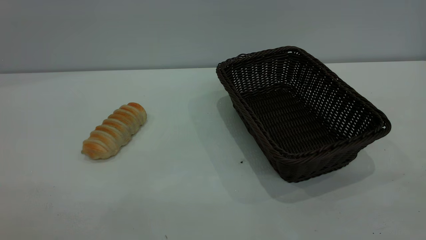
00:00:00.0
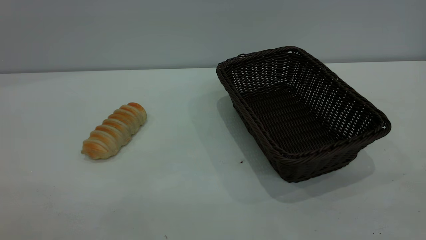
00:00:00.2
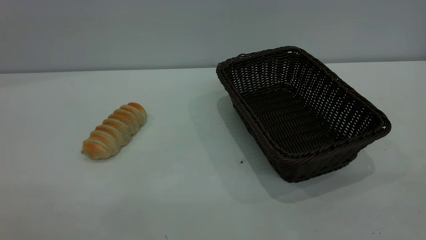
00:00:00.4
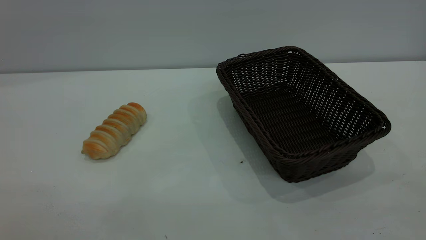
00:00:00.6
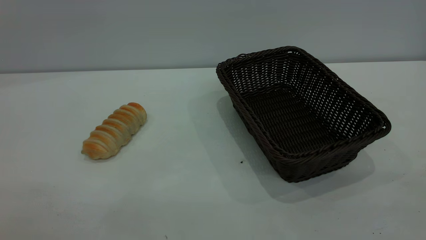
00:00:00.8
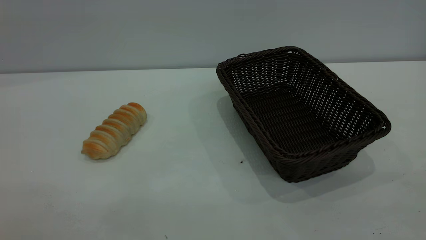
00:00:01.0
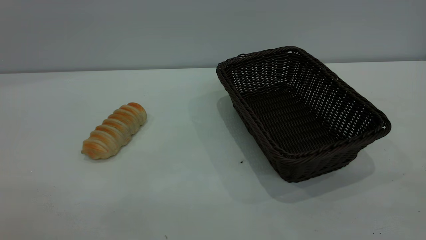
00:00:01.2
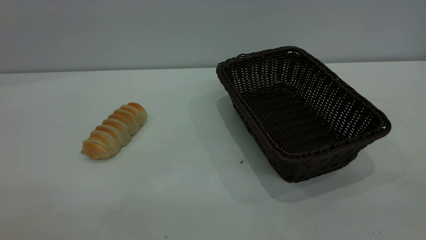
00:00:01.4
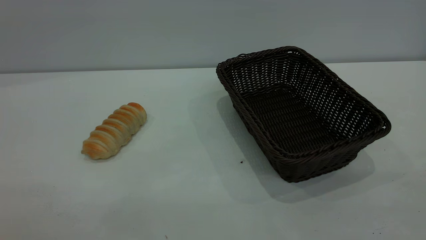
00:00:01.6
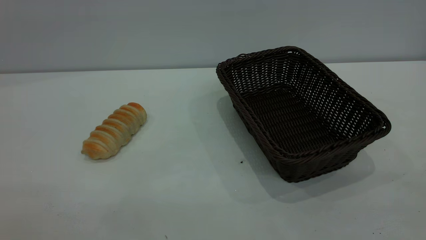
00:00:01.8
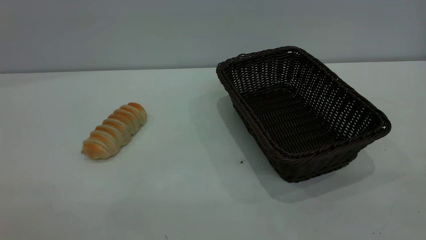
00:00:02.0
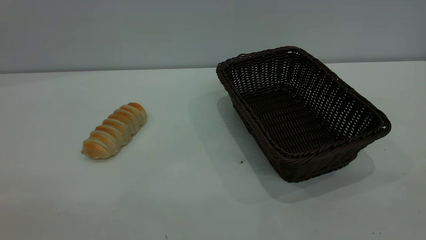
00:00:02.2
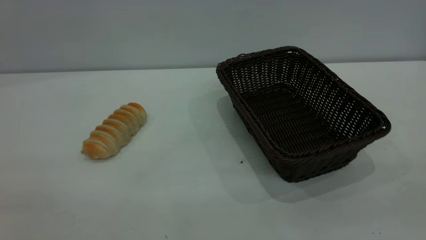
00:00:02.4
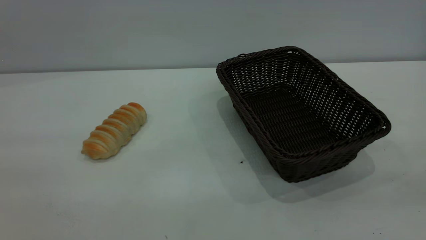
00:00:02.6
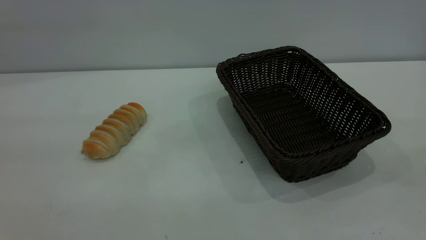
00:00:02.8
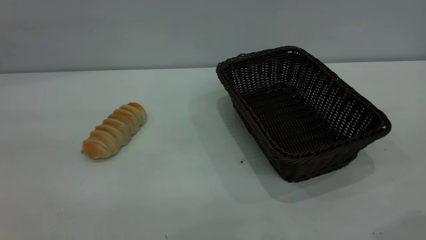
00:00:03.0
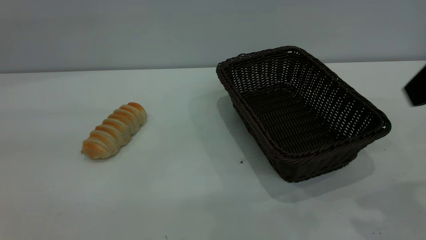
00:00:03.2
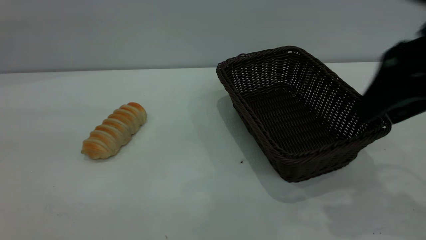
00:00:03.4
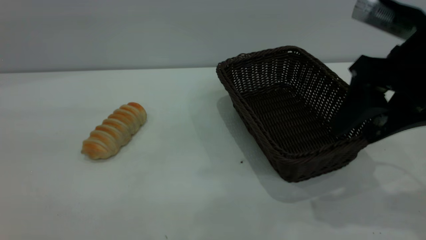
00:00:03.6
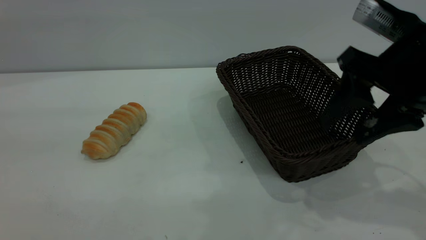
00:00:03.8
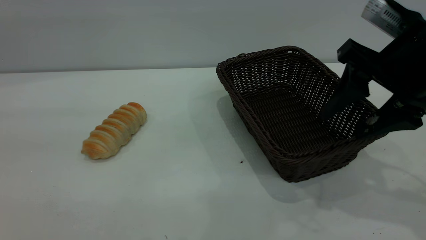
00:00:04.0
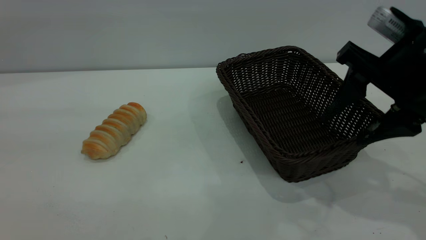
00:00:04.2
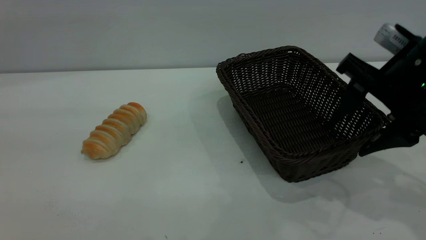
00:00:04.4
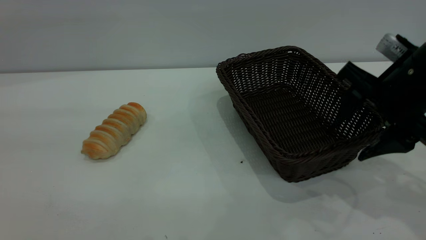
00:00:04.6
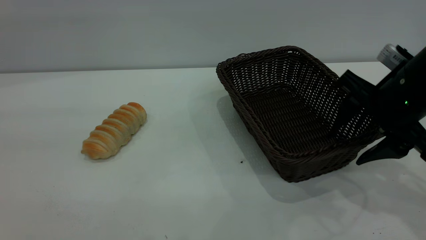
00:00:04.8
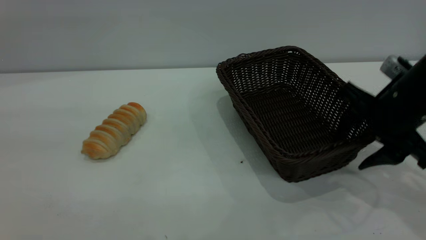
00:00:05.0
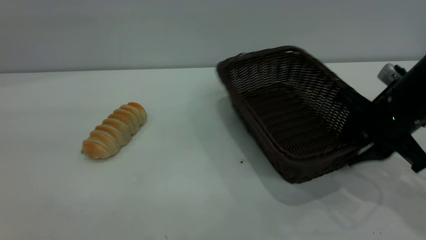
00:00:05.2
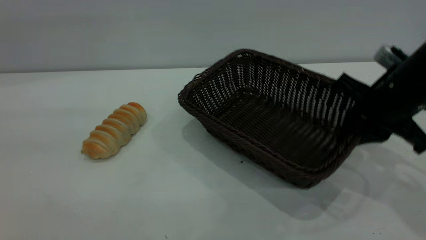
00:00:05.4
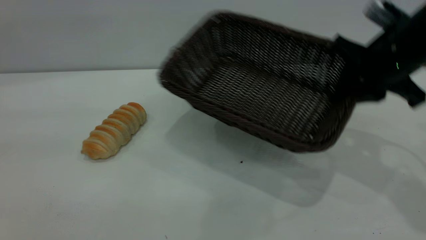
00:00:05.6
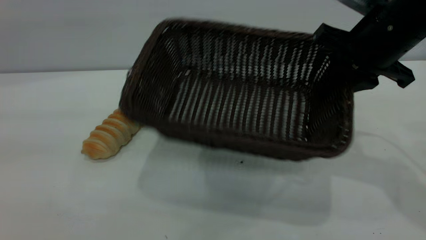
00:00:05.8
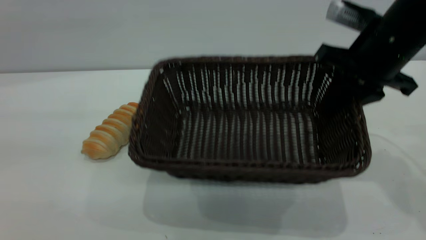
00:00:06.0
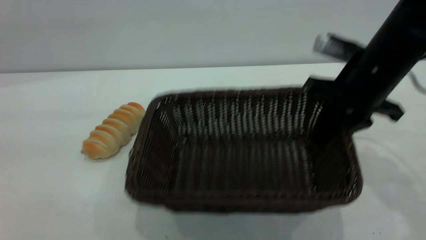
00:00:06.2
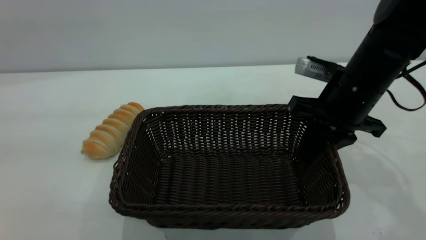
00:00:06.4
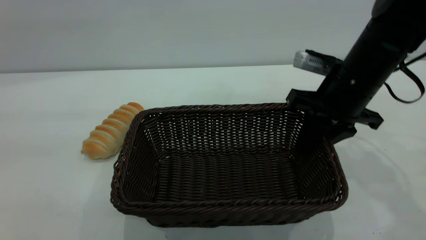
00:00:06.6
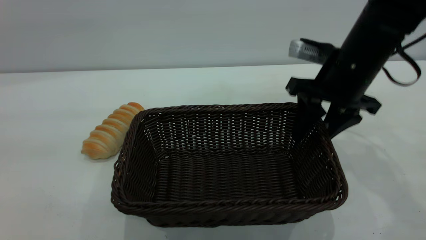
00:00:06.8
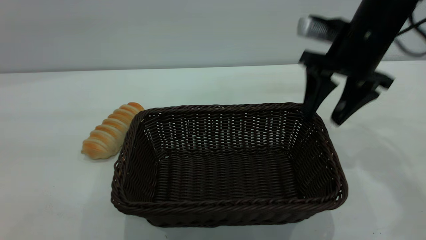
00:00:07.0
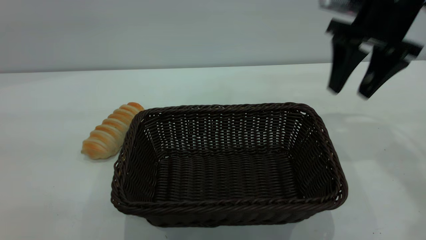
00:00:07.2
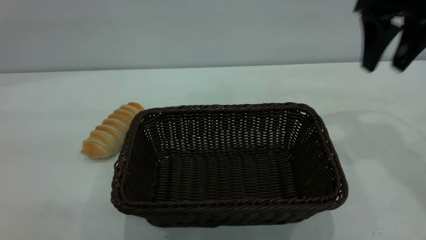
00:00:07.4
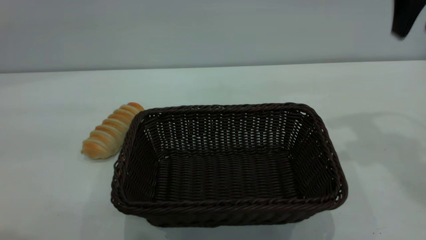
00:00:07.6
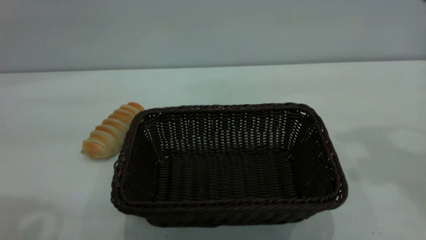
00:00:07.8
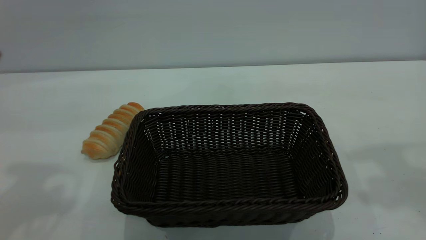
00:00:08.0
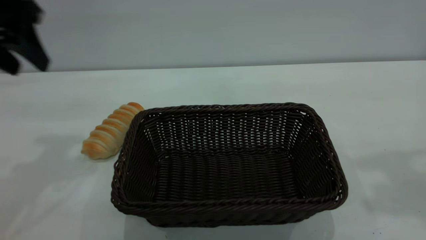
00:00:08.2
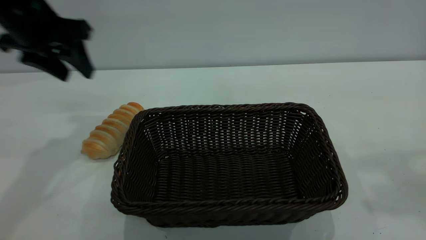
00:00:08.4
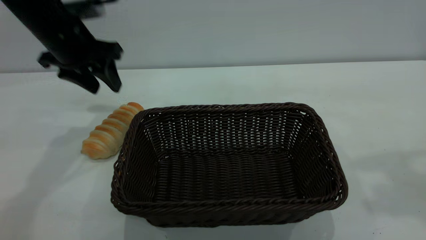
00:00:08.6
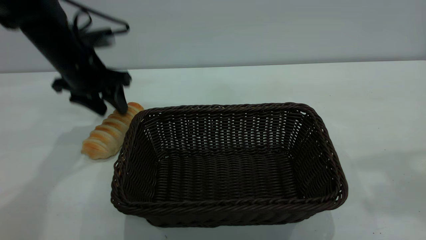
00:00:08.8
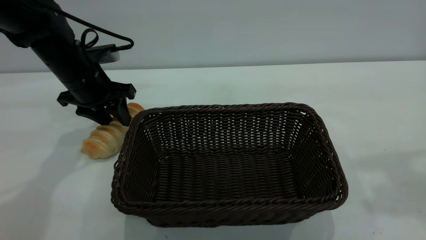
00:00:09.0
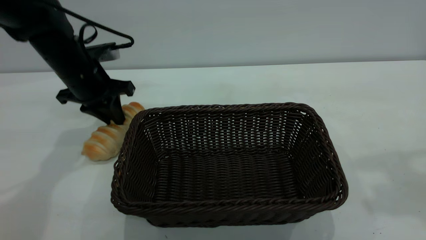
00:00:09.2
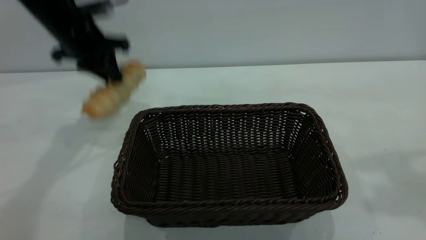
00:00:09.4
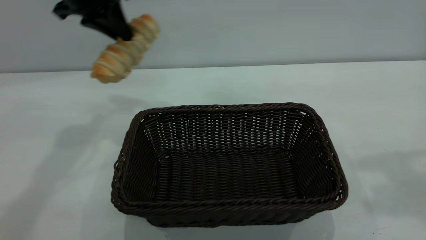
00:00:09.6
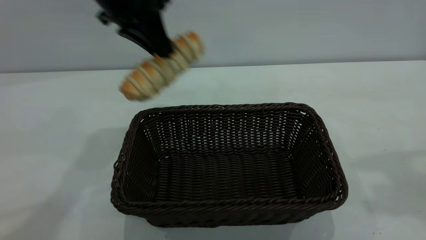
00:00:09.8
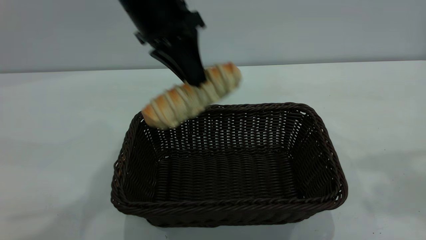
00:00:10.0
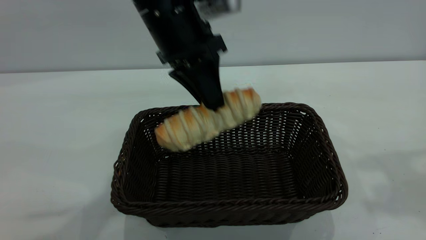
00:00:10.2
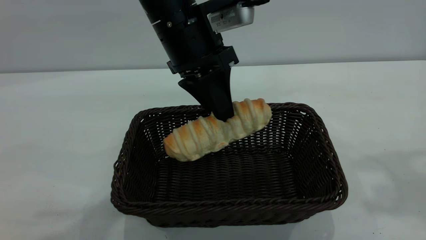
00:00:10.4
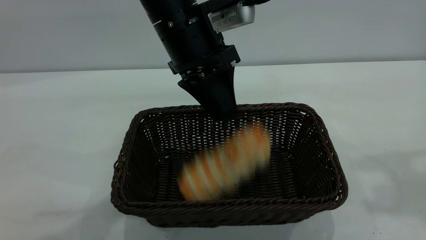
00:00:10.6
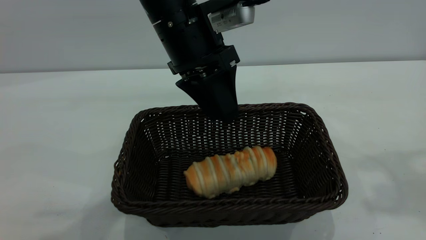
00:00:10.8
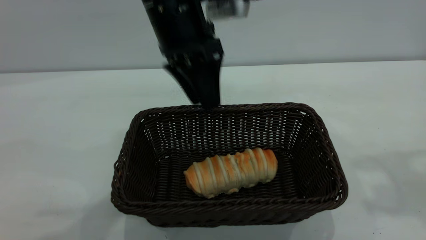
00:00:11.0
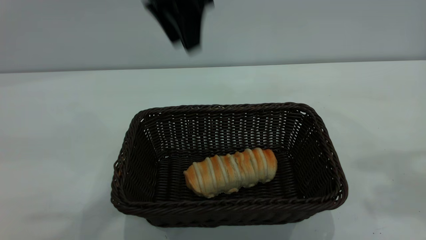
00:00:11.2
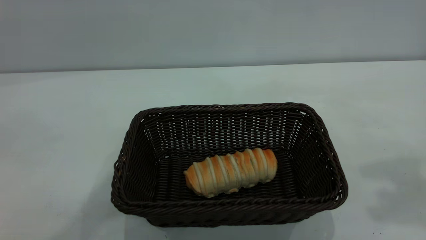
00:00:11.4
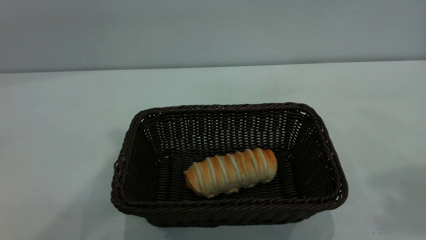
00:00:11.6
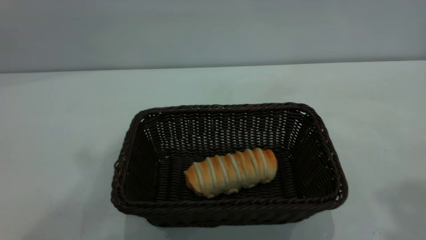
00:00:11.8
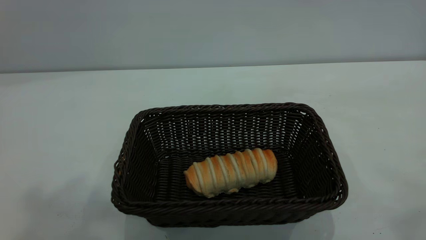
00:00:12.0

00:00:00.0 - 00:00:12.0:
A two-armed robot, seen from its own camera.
Task of the whole recording: One hand grasps the black basket and places it in the middle of the table, while the other hand picks up the long bread and puts it into the black basket.
Step, 00:00:00.0 - 00:00:07.0: Move the basket to the center of view.
Step, 00:00:09.6 - 00:00:11.0: place the bread into the basket.
00:00:00.0 - 00:00:01.6: Neither gripper changes place.
00:00:03.0 - 00:00:04.4: The right gripper travels downward and forward by roughly 15 cm.
00:00:04.4 - 00:00:06.0: The right gripper is displaced forward by roughly 5 cm, reaches roughly 5 cm downward, then returns, and closes its fingers.
00:00:06.0 - 00:00:07.6: The right gripper goes some 15 cm upward, and opens.
00:00:07.6 - 00:00:09.0: The left gripper is displaced forward and downward by about 40 cm; the right gripper is displaced backward and upward by about 15 cm.
00:00:09.0 - 00:00:10.4: The left gripper travels to the right, upward and backward by about 25 cm, and closes up.
00:00:10.4 - 00:00:12.0: The right gripper moves backward and upward, some 10 cm; the left gripper travels upward, backward and to the left by about 40 cm, and opens its fingers.

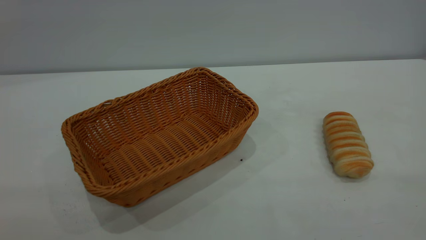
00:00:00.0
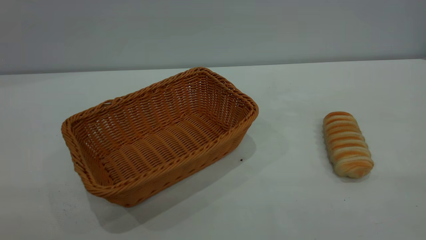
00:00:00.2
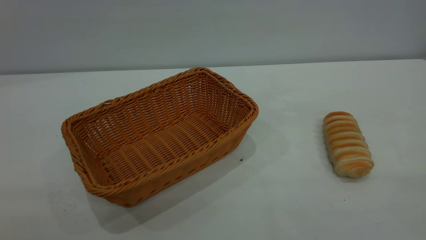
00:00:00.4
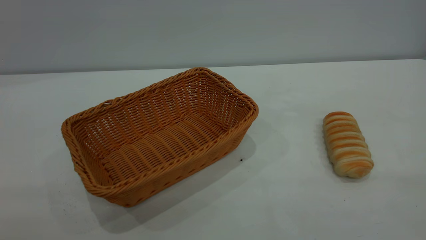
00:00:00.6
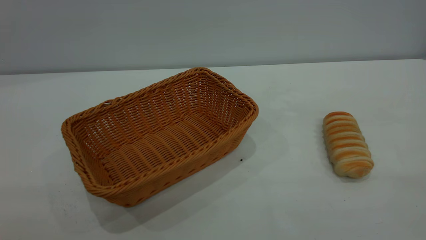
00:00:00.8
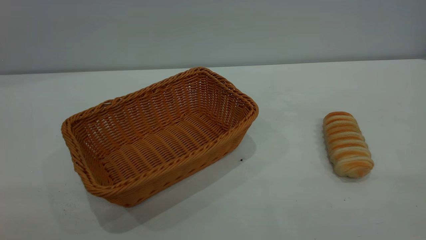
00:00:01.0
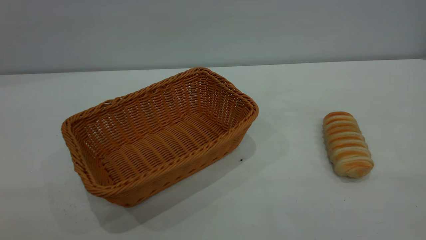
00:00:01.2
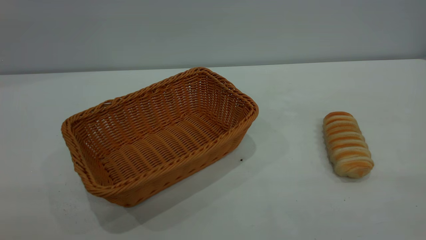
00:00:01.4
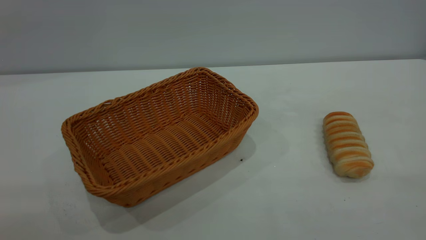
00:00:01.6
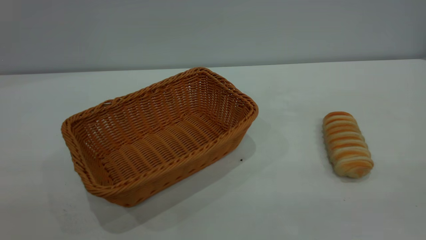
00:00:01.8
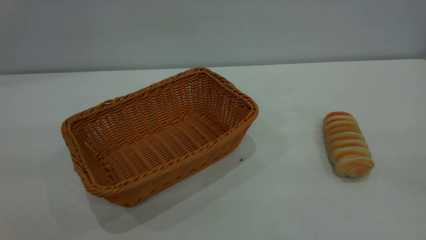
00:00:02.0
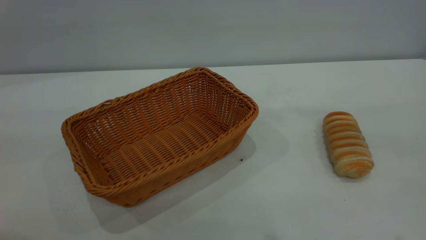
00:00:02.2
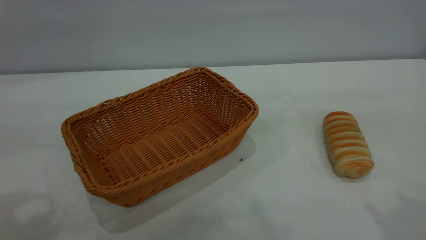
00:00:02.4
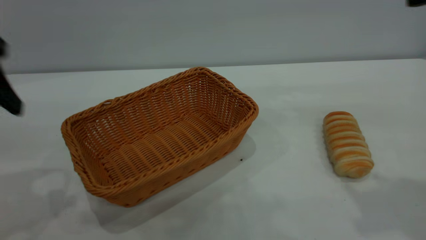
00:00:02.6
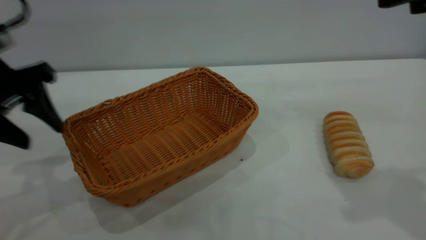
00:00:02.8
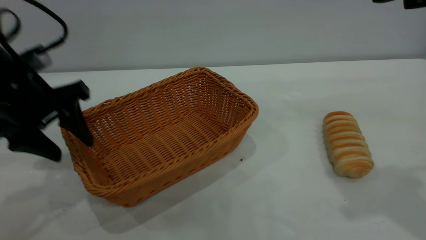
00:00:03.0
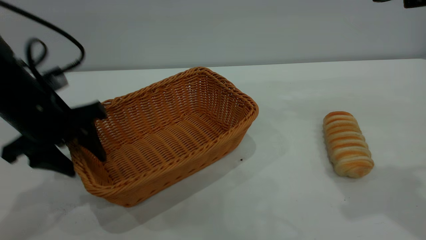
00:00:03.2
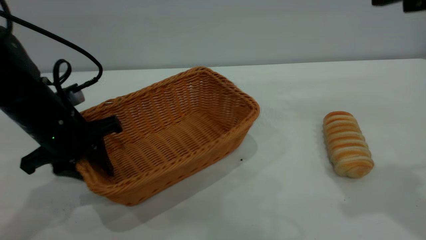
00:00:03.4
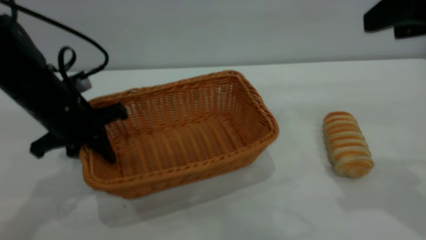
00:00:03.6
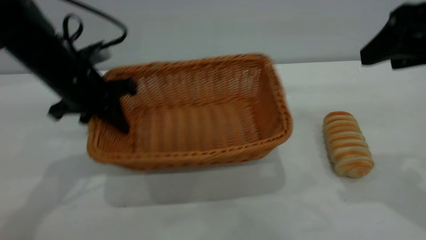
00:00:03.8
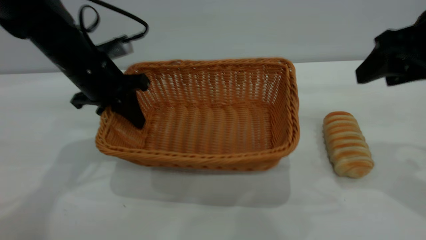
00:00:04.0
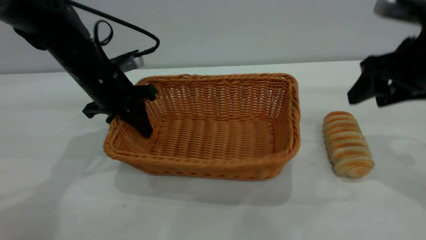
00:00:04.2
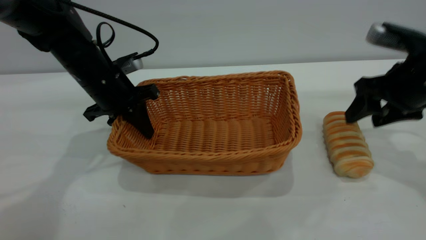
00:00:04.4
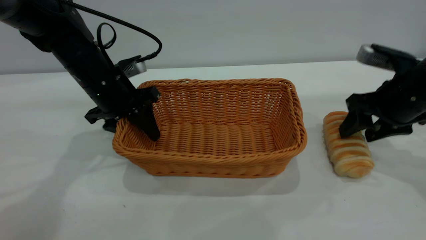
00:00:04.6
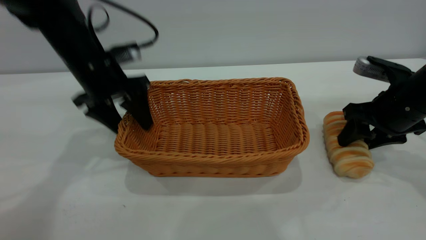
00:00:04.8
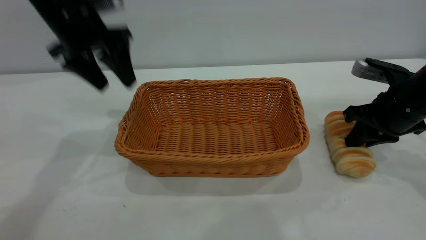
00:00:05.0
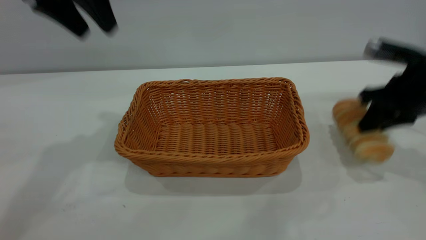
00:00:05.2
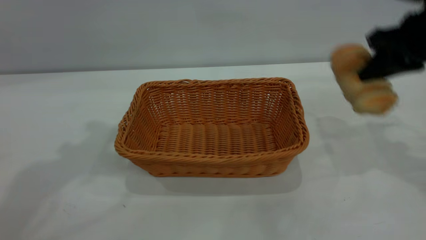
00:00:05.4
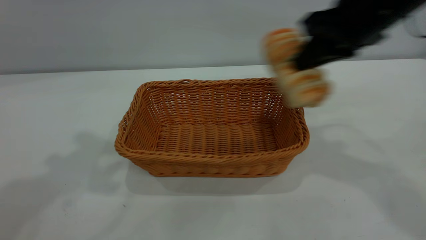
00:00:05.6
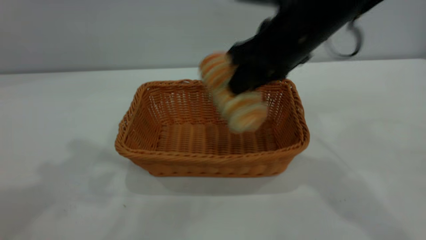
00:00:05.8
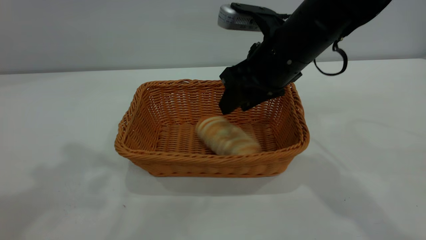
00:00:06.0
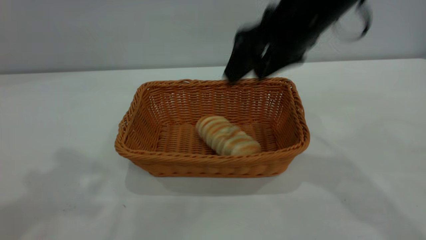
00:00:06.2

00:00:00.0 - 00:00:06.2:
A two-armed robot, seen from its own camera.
Task of the whole recording: One hand grasps the yellow basket and places it in the middle of the table, while the other hand picks up the long bread and puts it into the yellow basket.
Step, 00:00:00.0 - 00:00:04.8: Move the basket to the center of view.
Step, 00:00:05.4 - 00:00:06.2: place the bread into the basket.
00:00:00.0 - 00:00:01.6: Neither gripper changes place.
00:00:01.6 - 00:00:03.2: The left gripper heads forward and downward, covering approximately 40 cm.
00:00:03.2 - 00:00:04.6: The right gripper travels downward and forward by roughly 25 cm. The left gripper is displaced forward by some 10 cm, and closes, then opens again.
00:00:04.6 - 00:00:06.2: The left gripper heads upward and backward, covering roughly 40 cm. The right gripper goes approximately 25 cm upward and to the left, and closes and opens again.
